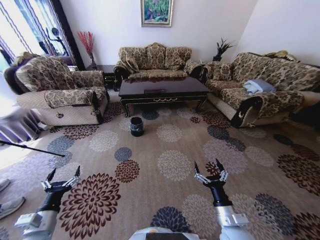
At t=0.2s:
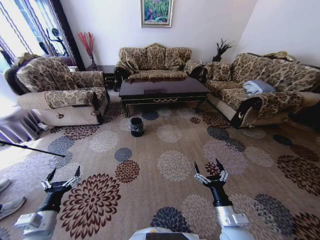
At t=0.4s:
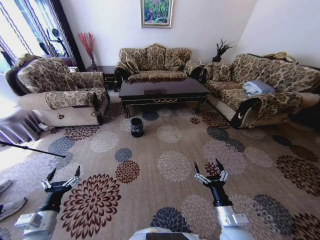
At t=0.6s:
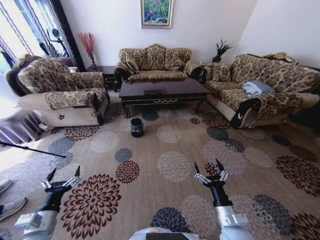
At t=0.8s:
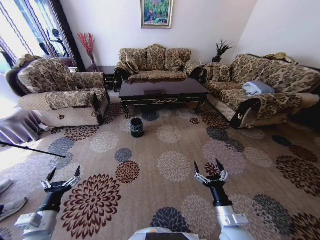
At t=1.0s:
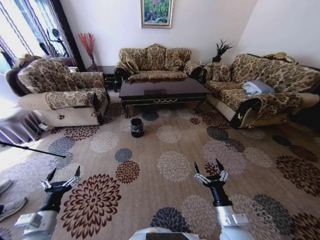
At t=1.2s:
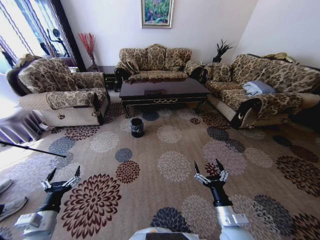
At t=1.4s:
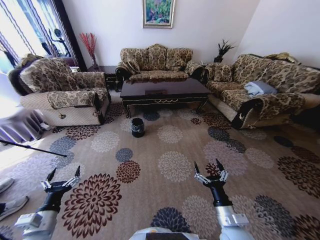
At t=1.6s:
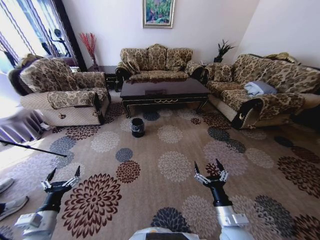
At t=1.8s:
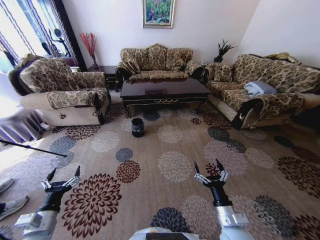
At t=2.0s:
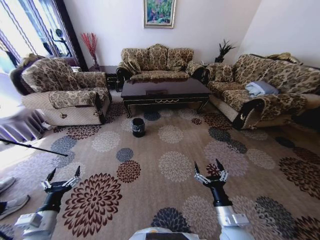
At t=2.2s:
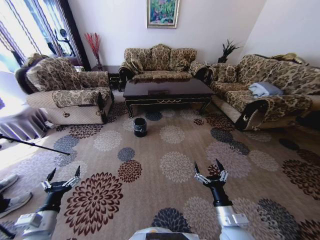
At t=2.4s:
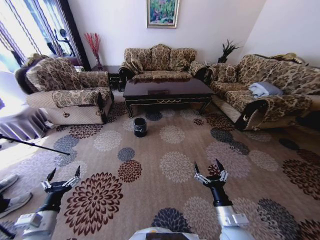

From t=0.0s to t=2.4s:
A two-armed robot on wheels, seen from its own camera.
Task of the whole recording: Move to the front of the table and pick up the trash from the floor, then place it into the trash bin.
From t=0.0s to t=1.2s: Neither gripper changes place.
